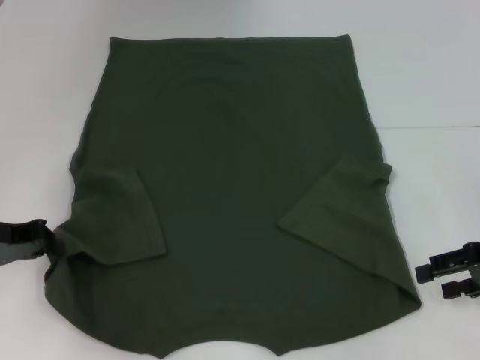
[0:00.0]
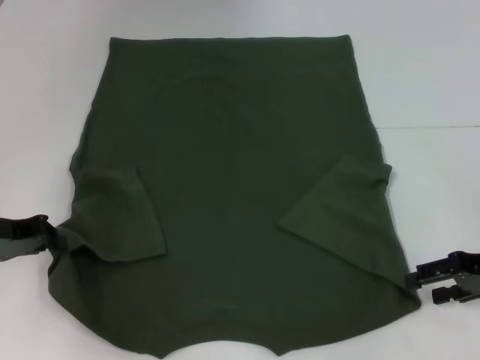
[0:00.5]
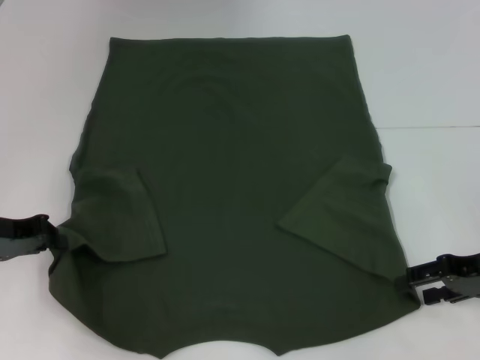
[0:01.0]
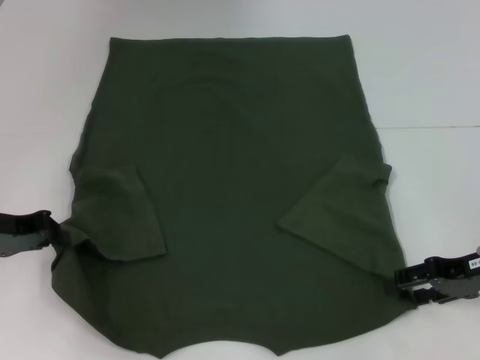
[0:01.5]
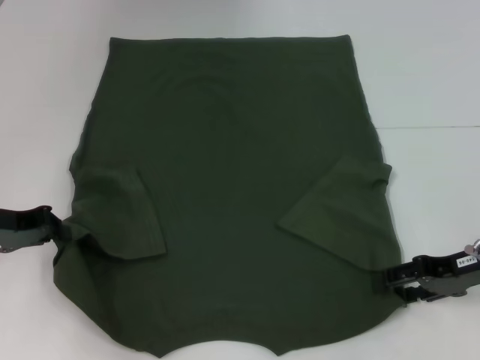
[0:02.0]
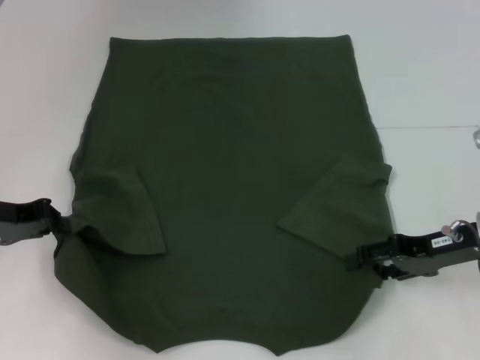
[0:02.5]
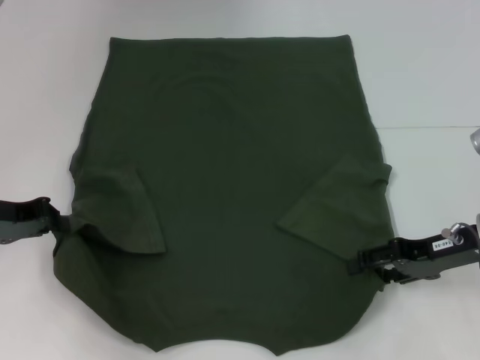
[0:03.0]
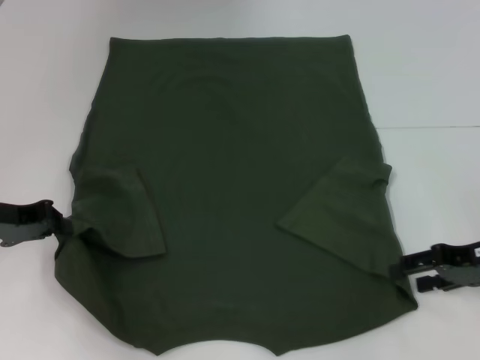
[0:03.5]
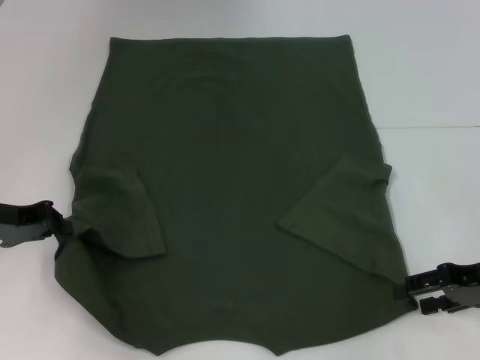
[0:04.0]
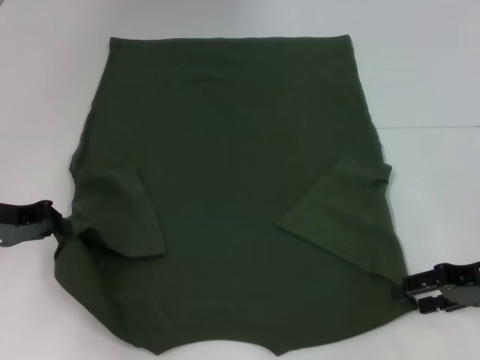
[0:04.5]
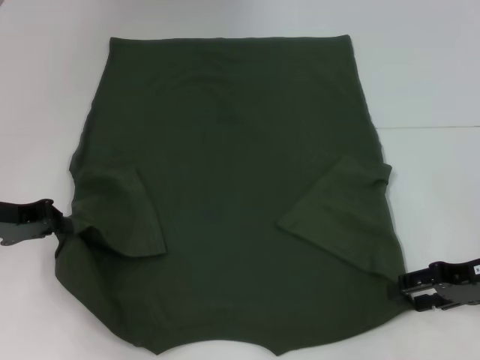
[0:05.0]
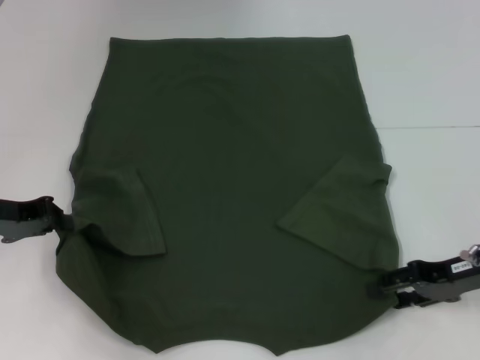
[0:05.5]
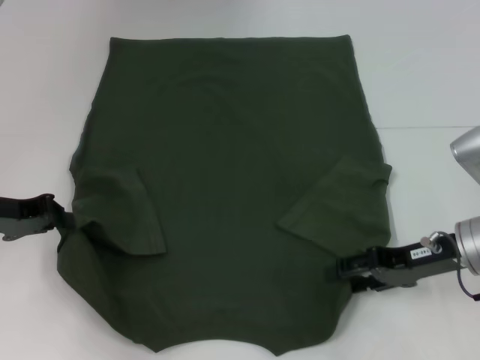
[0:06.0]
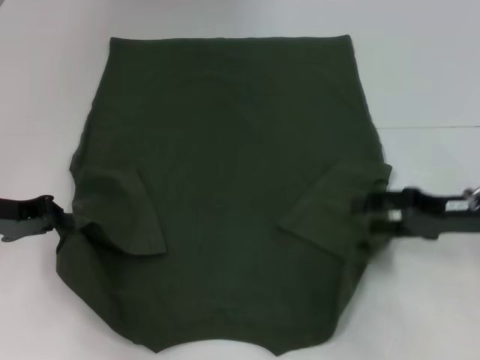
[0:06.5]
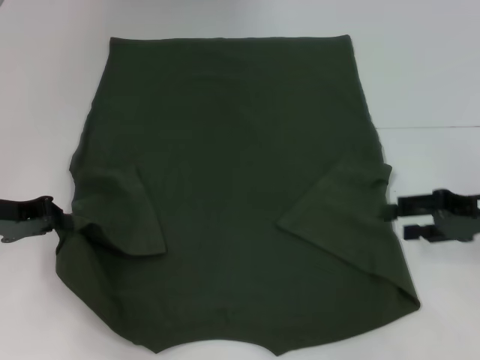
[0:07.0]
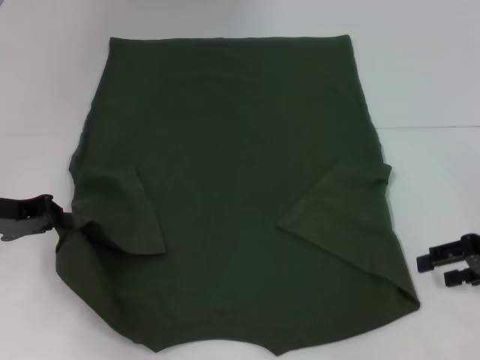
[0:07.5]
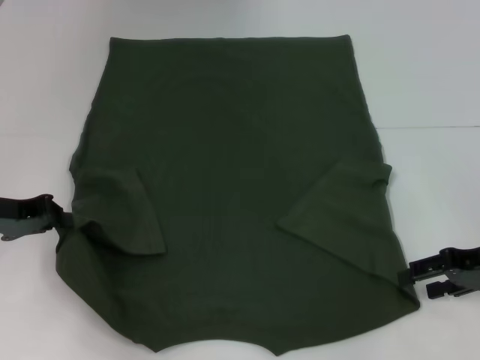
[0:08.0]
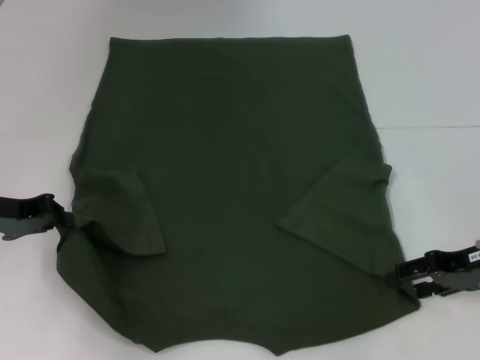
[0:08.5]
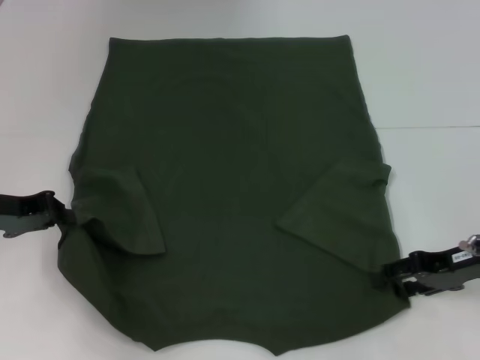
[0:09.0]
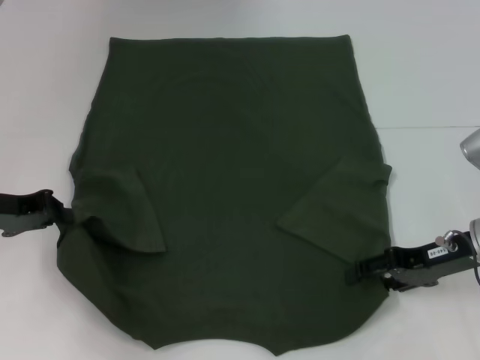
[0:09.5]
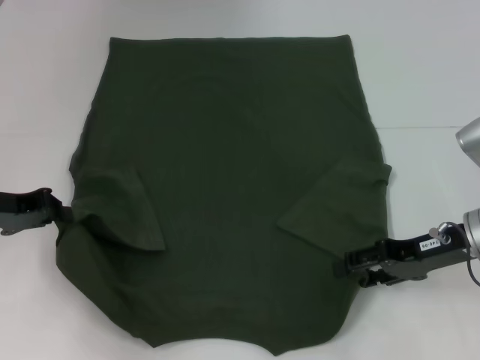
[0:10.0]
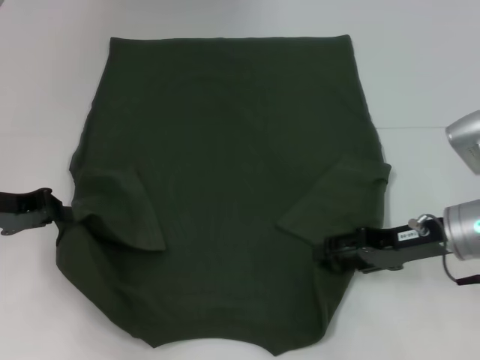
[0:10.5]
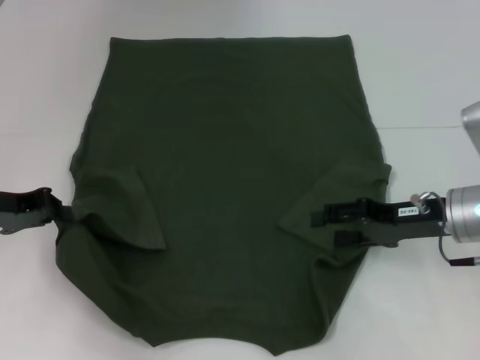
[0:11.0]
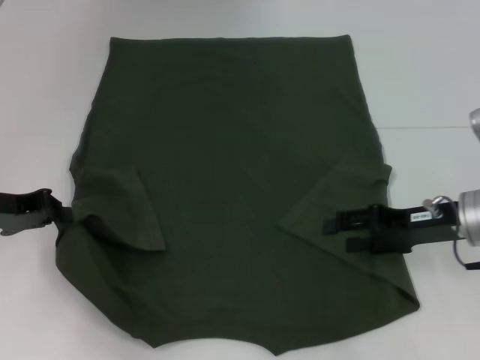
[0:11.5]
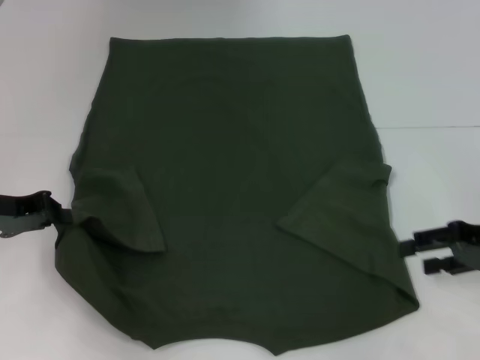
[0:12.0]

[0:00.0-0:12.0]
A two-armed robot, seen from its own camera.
0:00.0 to 0:02.0: The right gripper moves approximately 5 cm.
0:02.0 to 0:04.0: The grippers stay close to where they were, moving slightly.
0:04.0 to 0:06.0: The right gripper moves to the left, approximately 5 cm.
0:06.0 to 0:08.0: The right gripper travels to the right by some 5 cm.
0:08.0 to 0:10.0: The right gripper travels to the left by roughly 5 cm.
0:10.0 to 0:12.0: The right gripper travels to the right by roughly 5 cm.

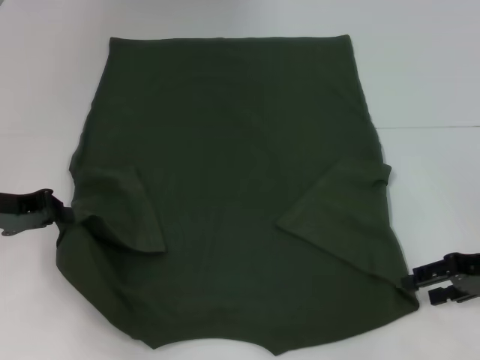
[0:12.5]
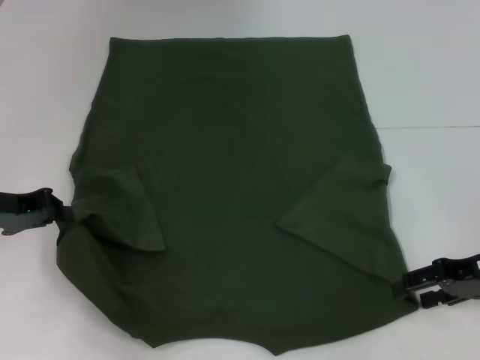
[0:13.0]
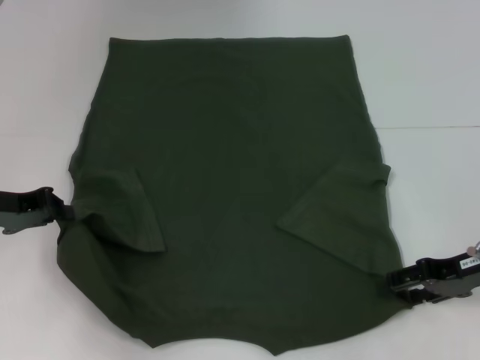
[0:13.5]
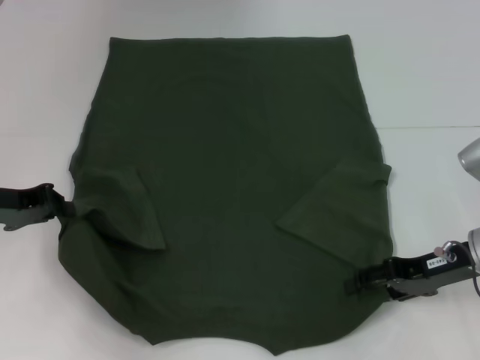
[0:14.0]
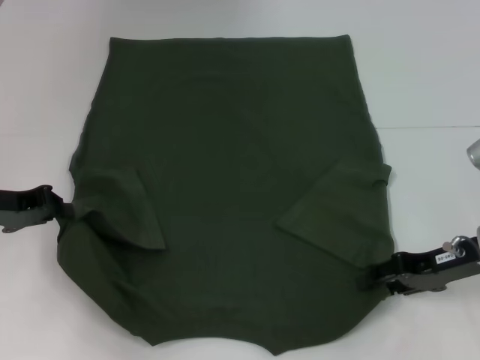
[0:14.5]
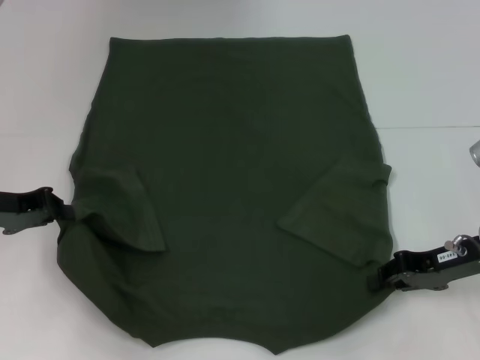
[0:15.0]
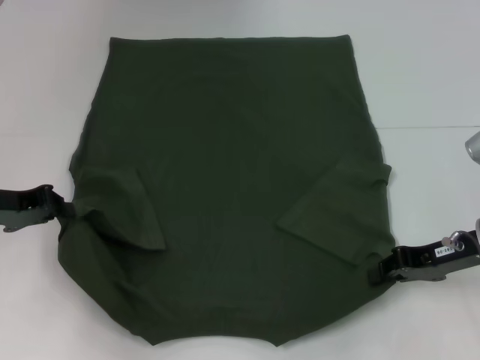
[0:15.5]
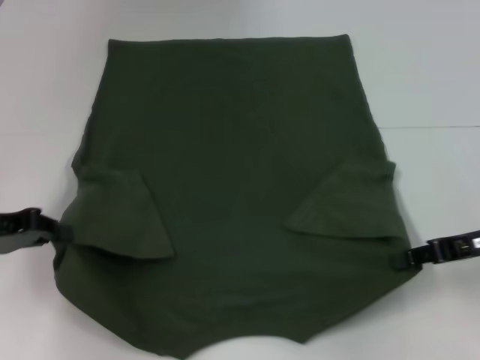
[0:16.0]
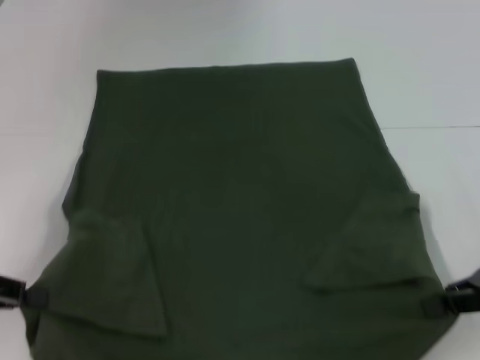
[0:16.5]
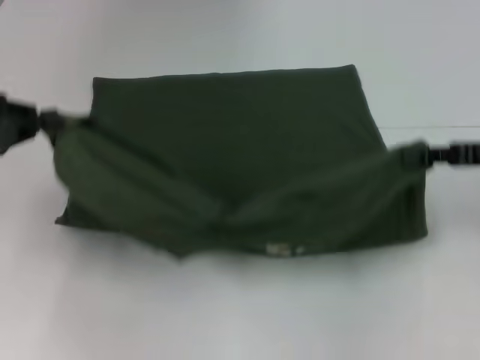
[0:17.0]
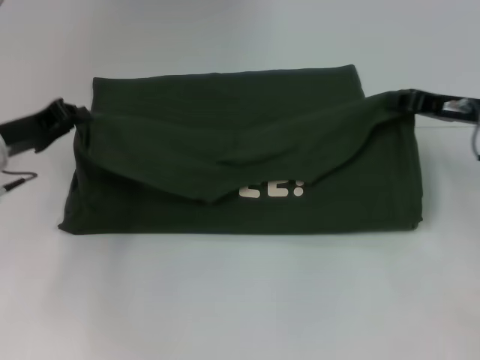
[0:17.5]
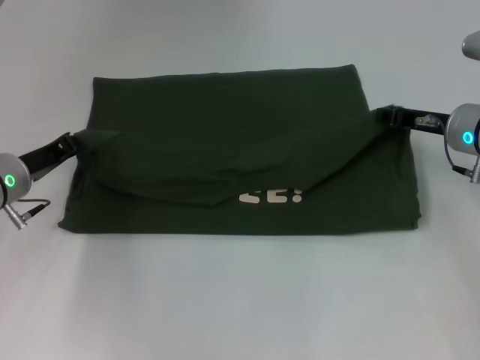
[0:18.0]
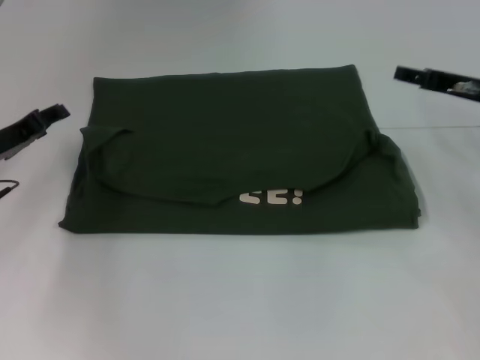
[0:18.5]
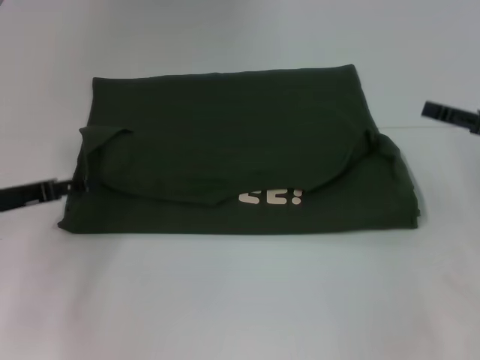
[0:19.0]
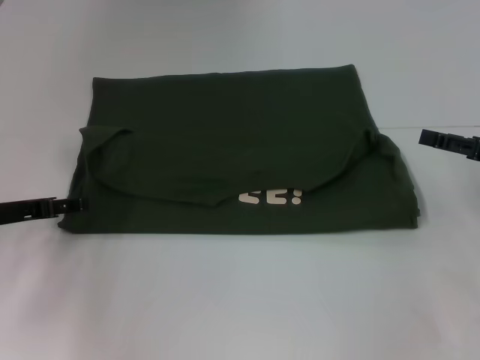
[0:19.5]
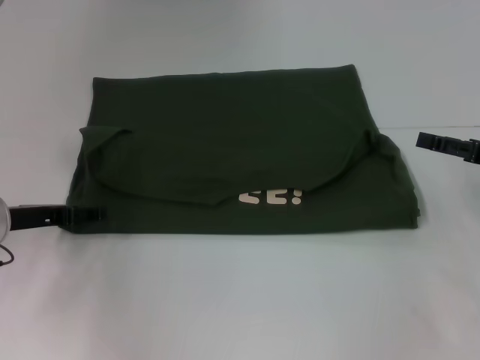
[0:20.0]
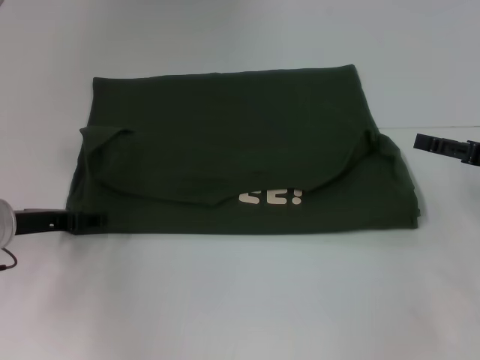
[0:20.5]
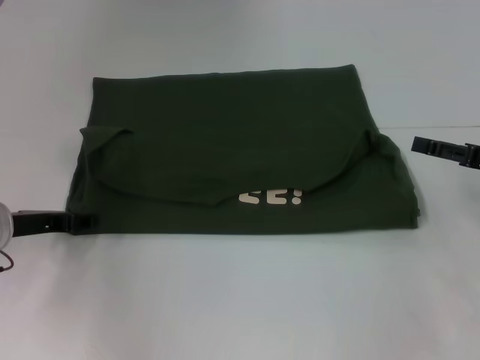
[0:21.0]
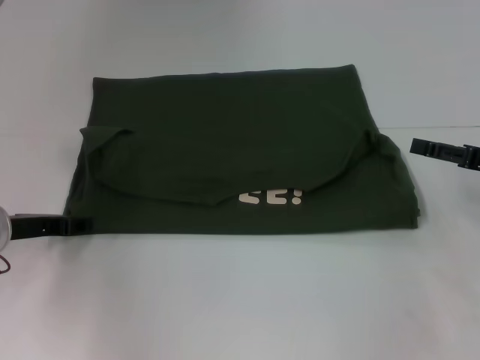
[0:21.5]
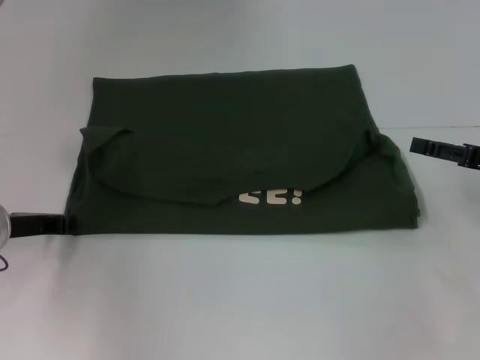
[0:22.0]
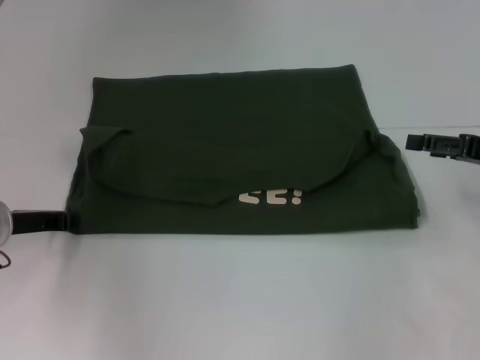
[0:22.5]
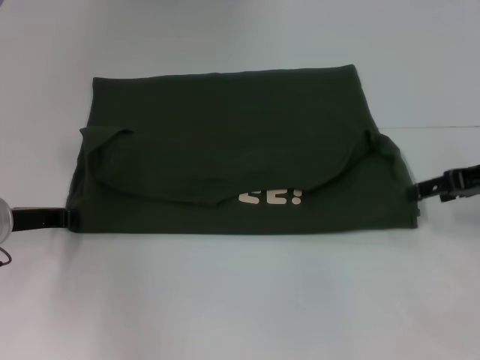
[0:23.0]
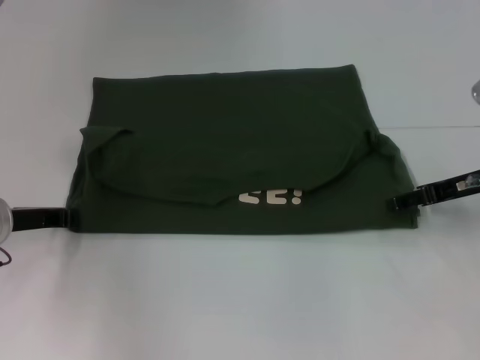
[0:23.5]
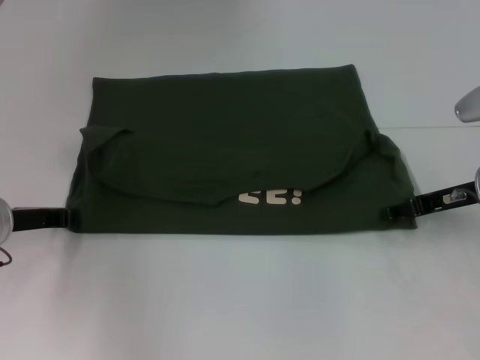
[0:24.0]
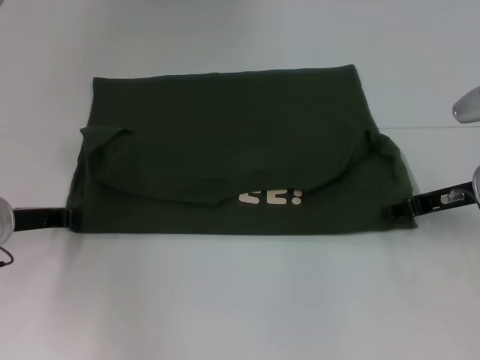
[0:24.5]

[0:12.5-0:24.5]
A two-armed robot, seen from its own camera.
Step, 0:12.5 to 0:15.0: Grab the bottom right corner with your right hand.
Step, 0:15.5 to 0:18.0: Fold the clothes with your left hand.
Step, 0:15.5 to 0:18.0: Fold the clothes with your right hand.
0:12.5 to 0:14.5: The right gripper shifts by about 5 cm.
0:14.5 to 0:16.5: The left gripper is displaced backward by roughly 10 cm. The right gripper travels to the right and upward by about 10 cm, and closes its fingers.
0:16.5 to 0:18.5: Both grippers move forward, roughly 15 cm. The right gripper opens its fingers, while the left gripper opens its fingers.
0:18.5 to 0:20.5: The right gripper heads backward and to the right, covering some 10 cm, and opens its fingers.
0:22.5 to 0:24.5: The right gripper heads to the left, covering about 5 cm.

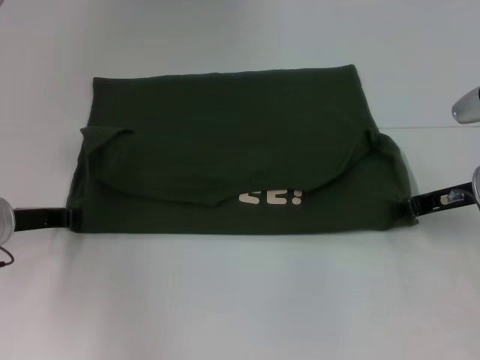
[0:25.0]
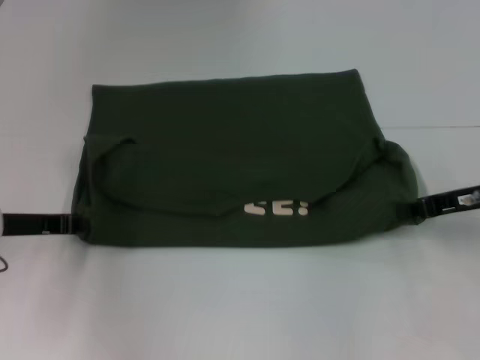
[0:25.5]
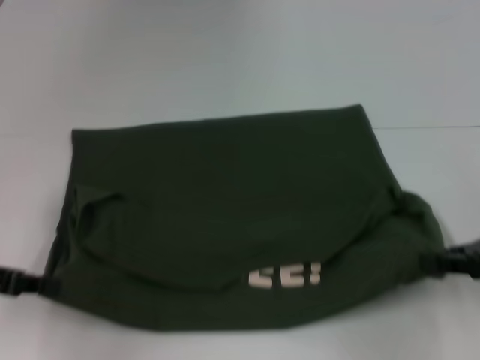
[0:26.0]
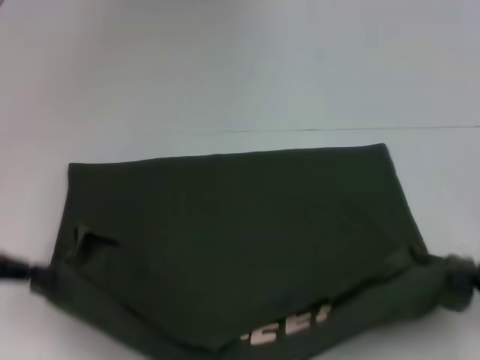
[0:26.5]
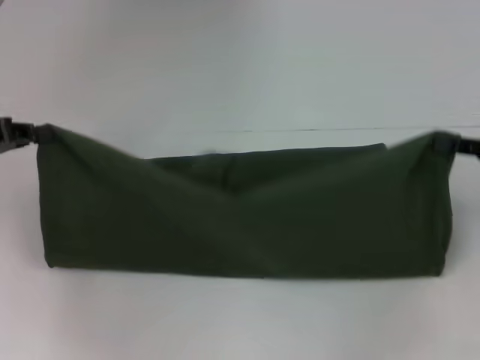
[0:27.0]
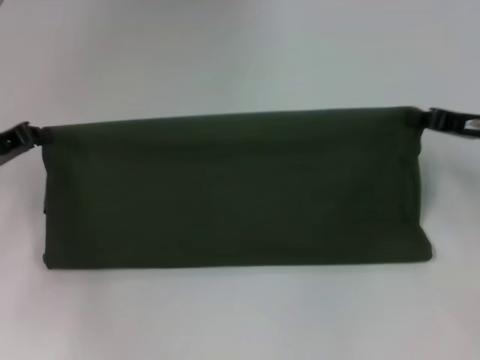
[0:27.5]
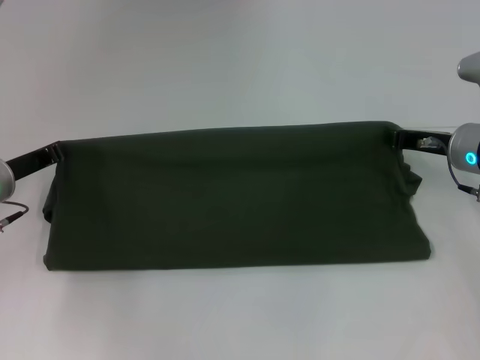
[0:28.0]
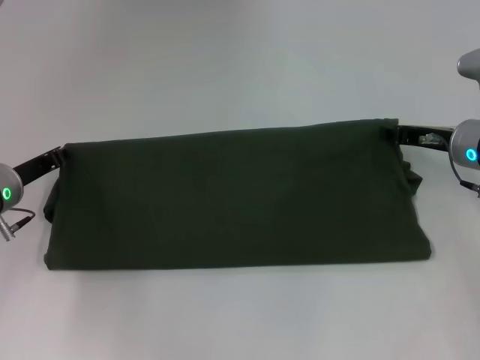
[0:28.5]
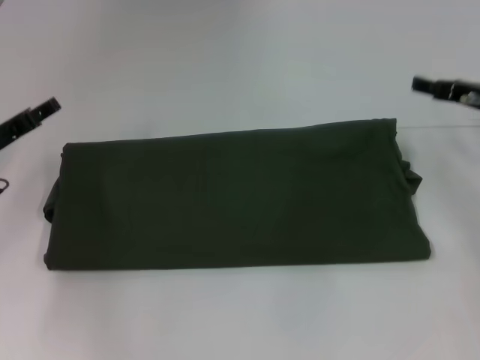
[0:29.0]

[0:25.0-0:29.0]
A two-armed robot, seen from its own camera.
Step, 0:26.5 to 0:28.5: Fold the clothes with your right hand.
0:25.0 to 0:27.0: The right gripper shifts about 10 cm to the right, backward and upward, while the left gripper goes approximately 10 cm upward and to the left.
0:27.0 to 0:29.0: The right gripper travels forward and to the left by roughly 10 cm, and opens up; the left gripper is displaced downward by some 5 cm, and opens its fingers.
